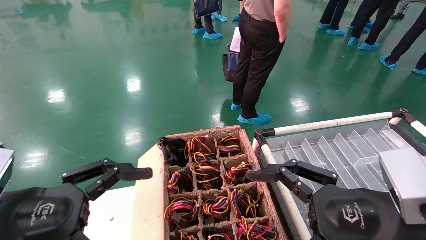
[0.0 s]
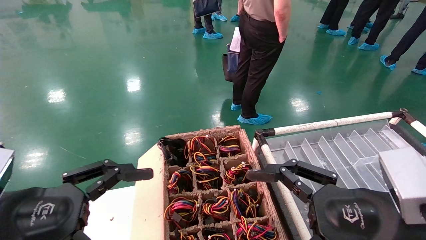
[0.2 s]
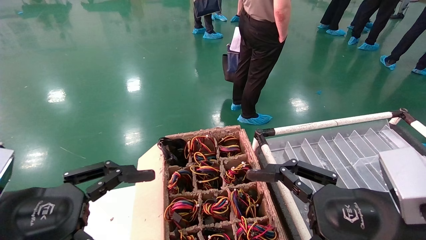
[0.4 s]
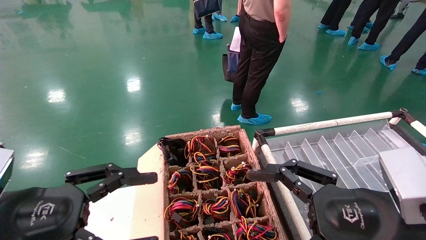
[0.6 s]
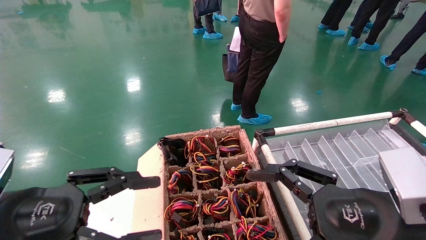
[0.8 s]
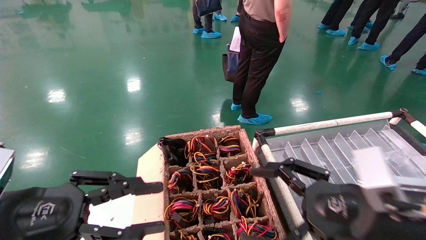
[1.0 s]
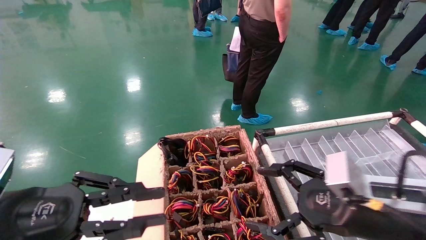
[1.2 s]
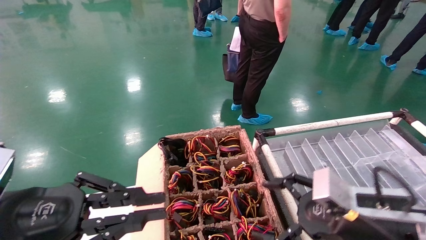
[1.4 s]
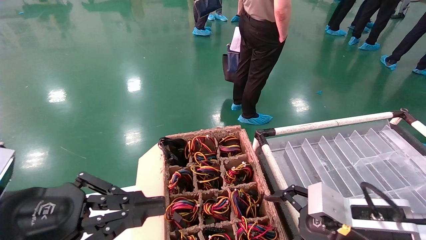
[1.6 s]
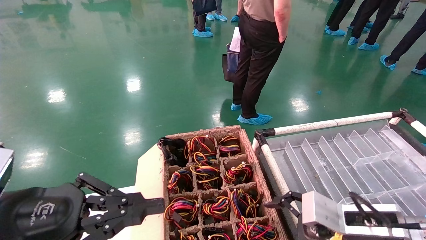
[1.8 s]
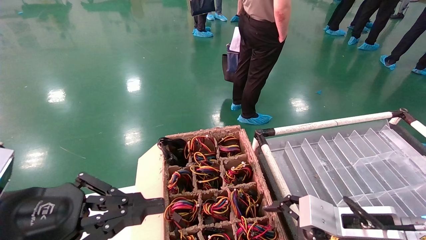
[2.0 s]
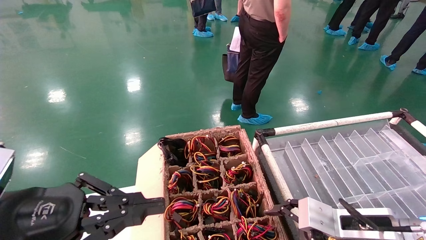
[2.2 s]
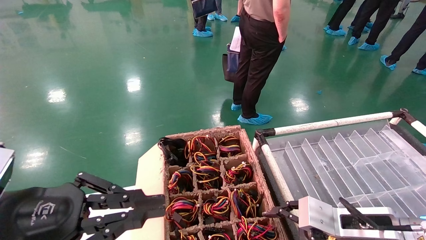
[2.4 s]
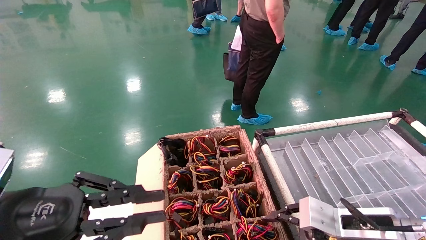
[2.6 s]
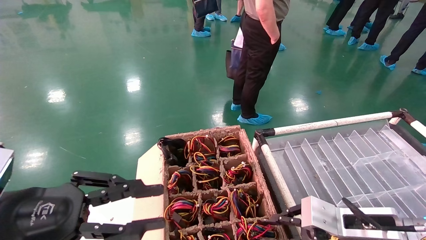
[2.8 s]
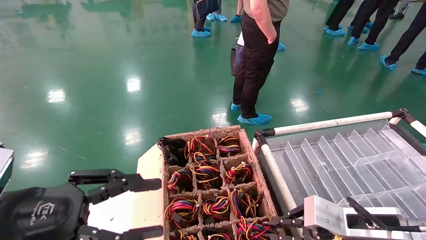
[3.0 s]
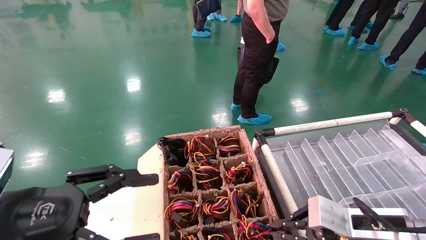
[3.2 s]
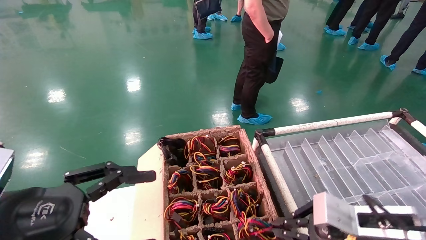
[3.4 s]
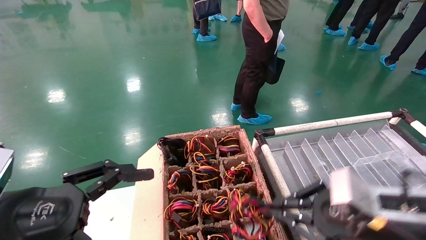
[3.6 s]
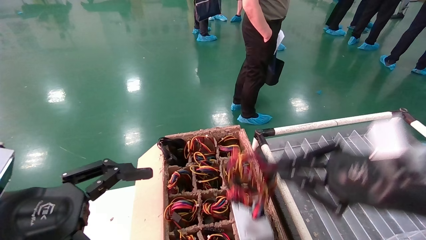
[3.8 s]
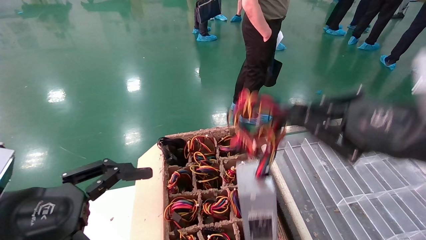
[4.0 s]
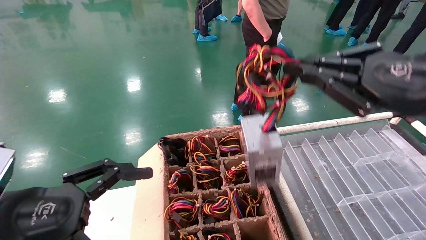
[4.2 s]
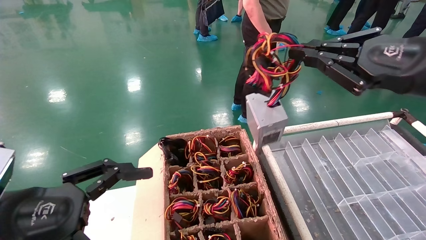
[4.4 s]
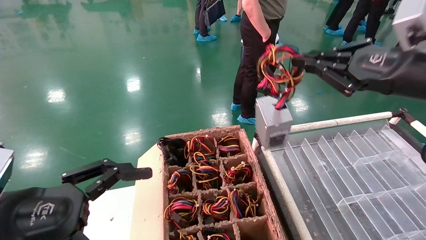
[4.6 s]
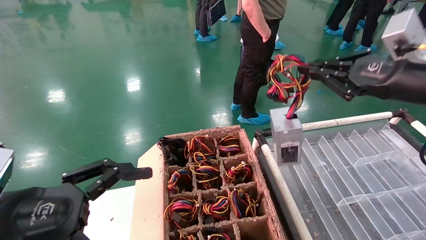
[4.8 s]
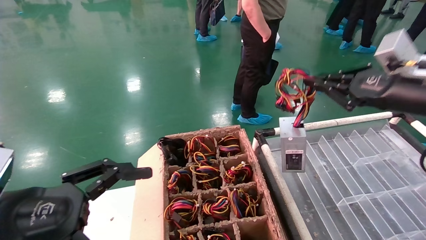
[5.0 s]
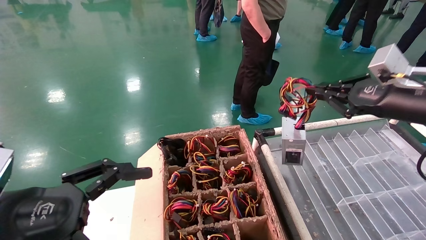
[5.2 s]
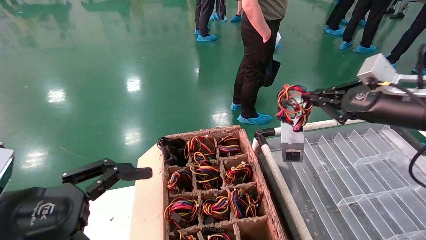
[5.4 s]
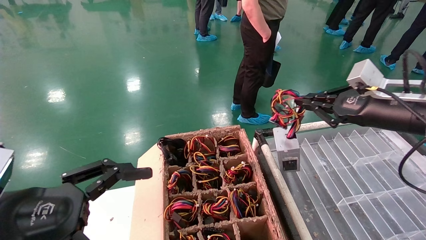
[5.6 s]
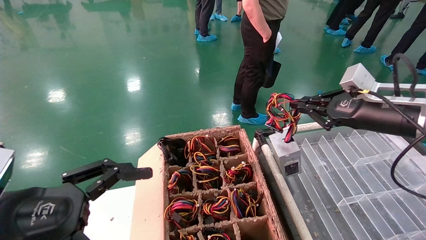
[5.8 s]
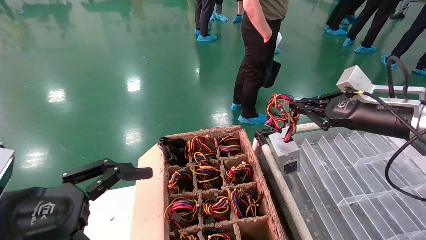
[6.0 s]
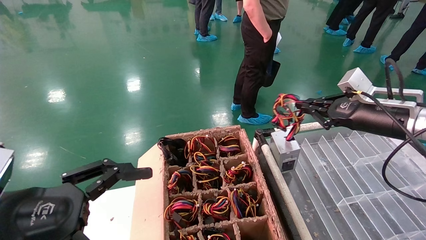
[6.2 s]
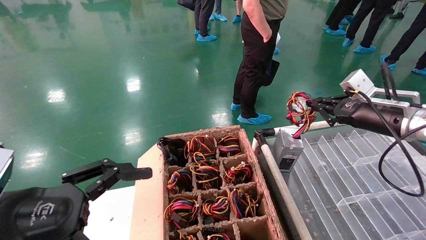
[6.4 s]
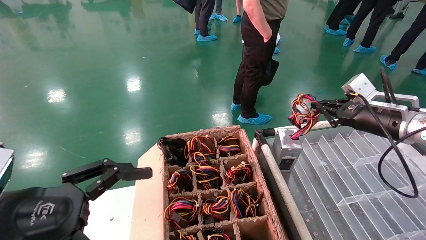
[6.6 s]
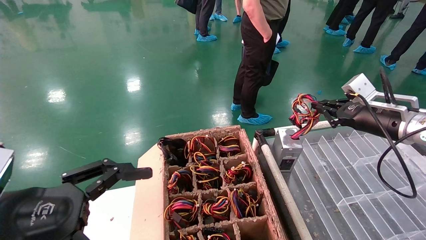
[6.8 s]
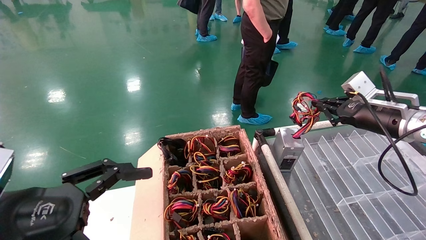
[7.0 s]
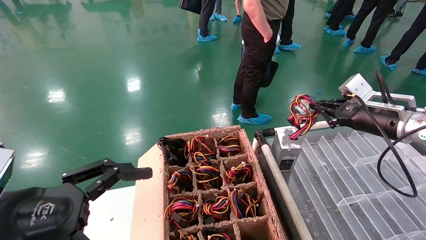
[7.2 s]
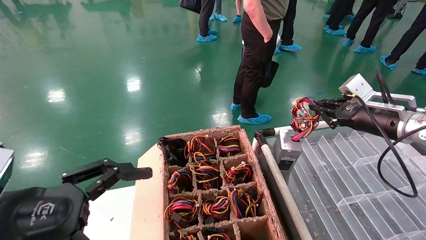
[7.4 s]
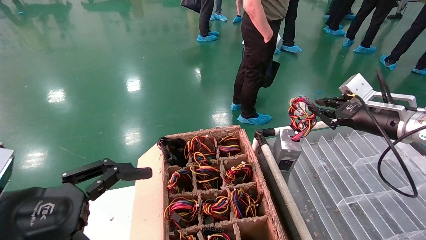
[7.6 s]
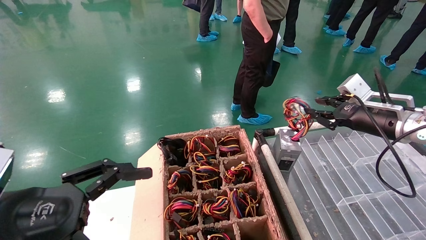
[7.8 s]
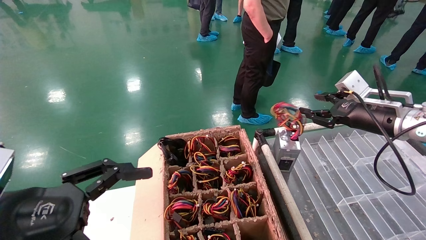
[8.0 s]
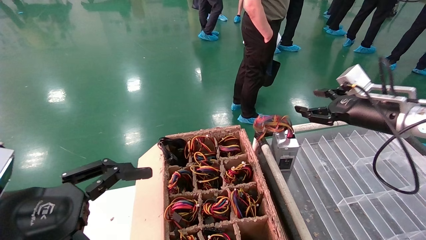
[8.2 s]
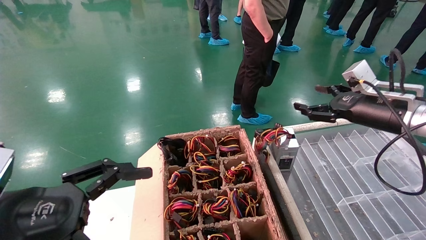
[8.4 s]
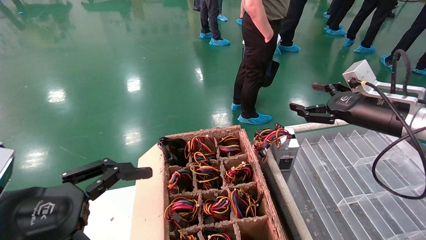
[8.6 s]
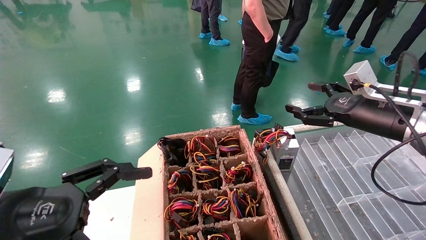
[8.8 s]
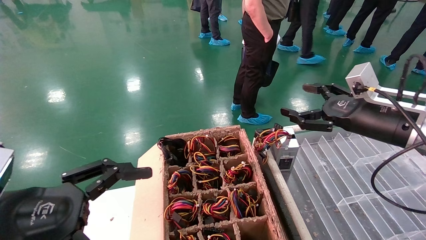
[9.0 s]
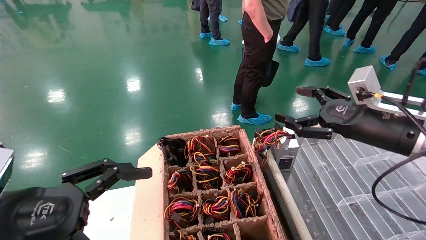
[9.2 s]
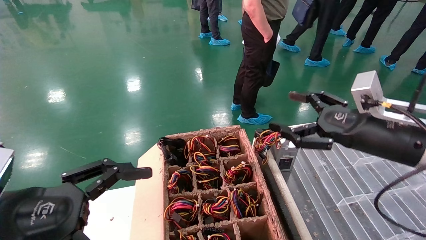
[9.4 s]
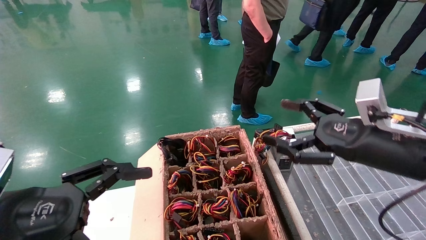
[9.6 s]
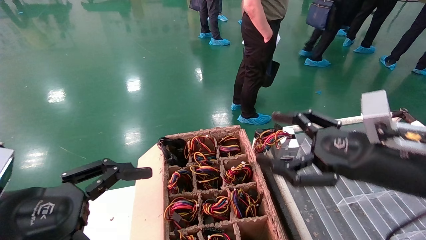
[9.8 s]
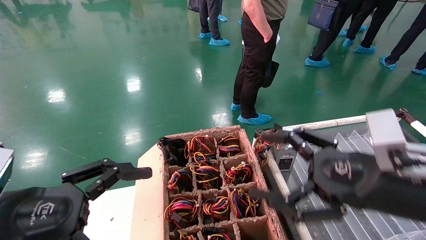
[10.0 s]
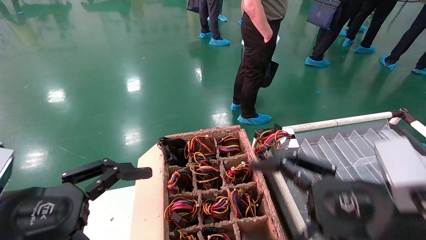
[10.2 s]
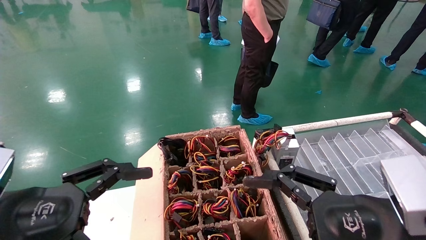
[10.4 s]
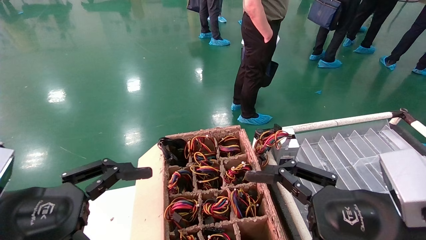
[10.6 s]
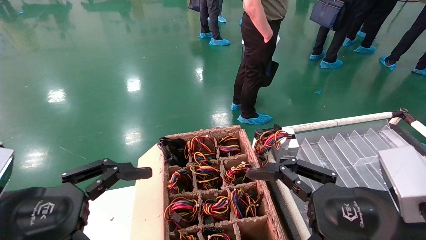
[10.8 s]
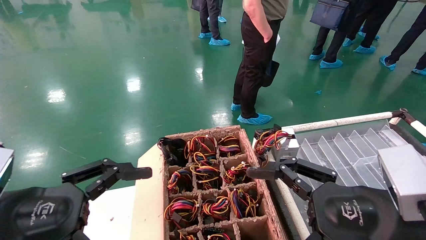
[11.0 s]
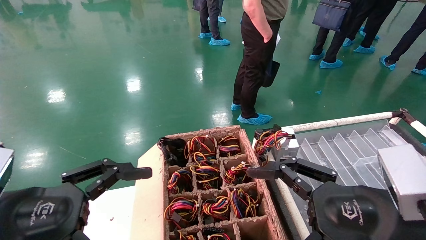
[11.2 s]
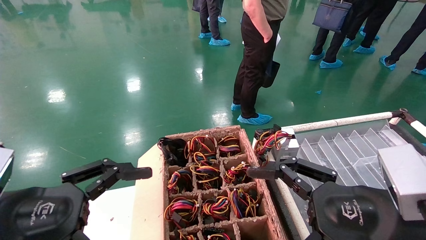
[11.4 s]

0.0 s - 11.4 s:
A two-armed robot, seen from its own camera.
Step, 0.8 s - 3.4 s: Grab and lift the power supply from the large box.
Step, 3.6 s - 7.8 s: Place the power supply on the operating table.
0.0 s - 1.4 s: The right gripper heads forward, covering approximately 5 cm, while the left gripper closes.
1.4 s - 2.8 s: The right gripper closes.
2.8 s - 4.2 s: The right gripper is displaced upward by approximately 20 cm, and closes up. The left gripper opens its fingers.
4.2 s - 5.6 s: The right gripper shifts approximately 15 cm forward and to the right.
5.6 s - 7.2 s: The right gripper heads forward, covering roughly 5 cm.
7.2 s - 8.6 s: The right gripper opens up.
8.6 s - 10.0 s: The right gripper goes some 20 cm backward and to the left.
10.0 s - 11.4 s: There are only small adjustments of the grippers.

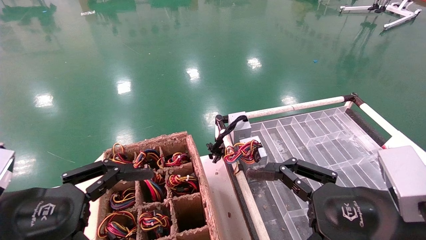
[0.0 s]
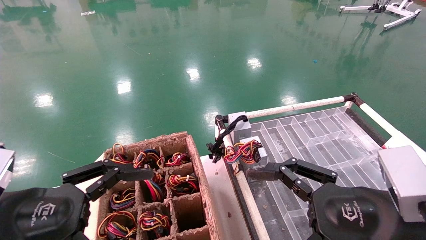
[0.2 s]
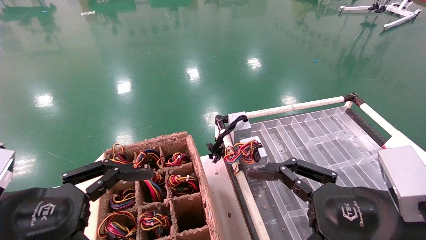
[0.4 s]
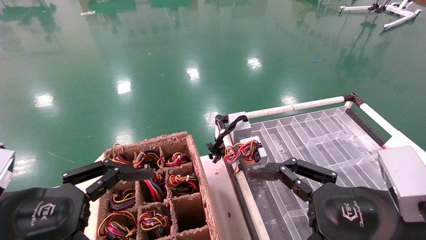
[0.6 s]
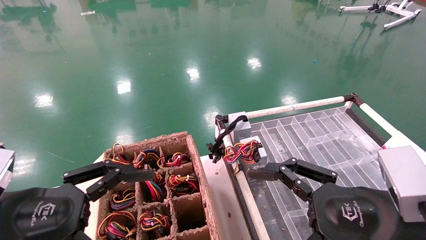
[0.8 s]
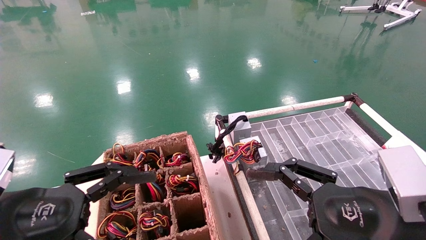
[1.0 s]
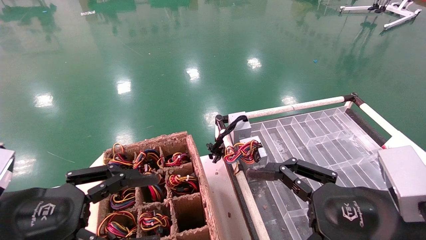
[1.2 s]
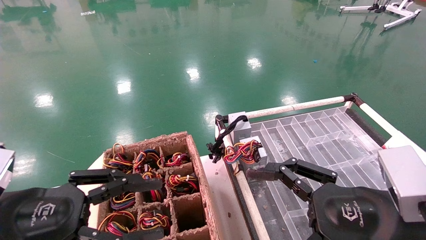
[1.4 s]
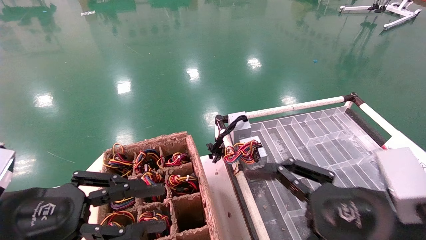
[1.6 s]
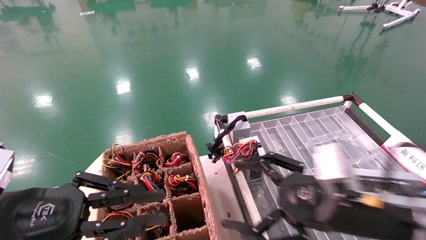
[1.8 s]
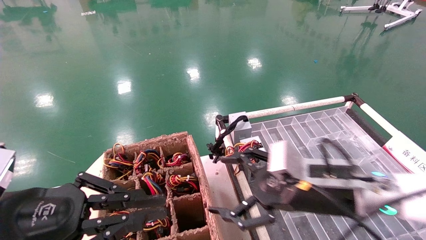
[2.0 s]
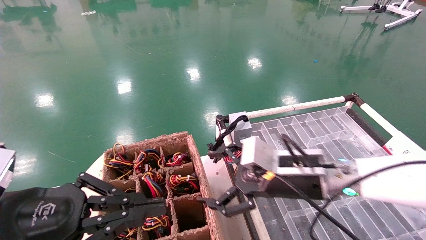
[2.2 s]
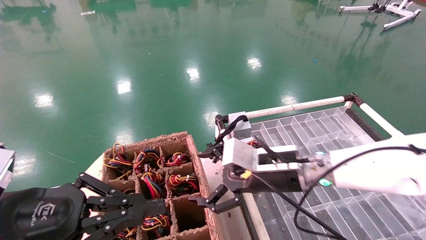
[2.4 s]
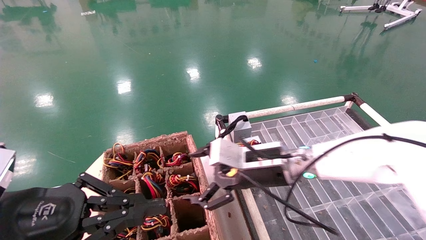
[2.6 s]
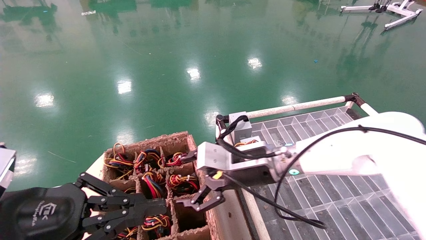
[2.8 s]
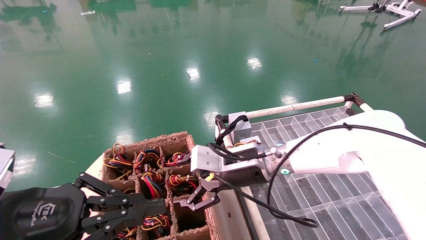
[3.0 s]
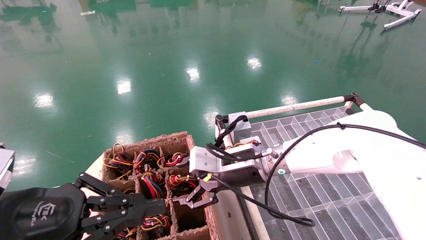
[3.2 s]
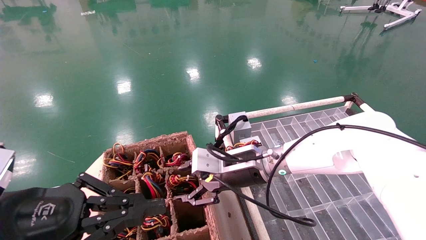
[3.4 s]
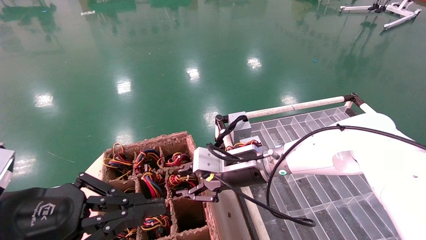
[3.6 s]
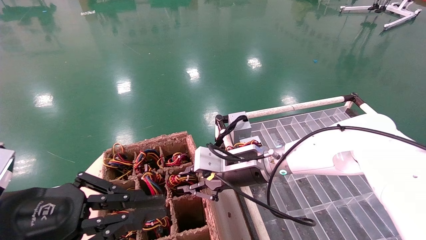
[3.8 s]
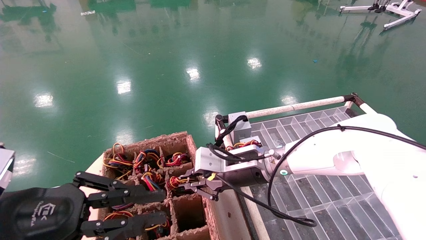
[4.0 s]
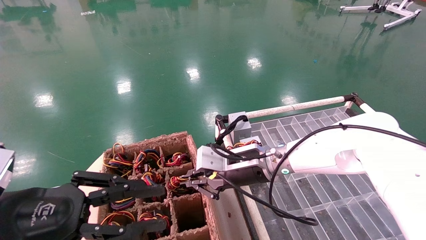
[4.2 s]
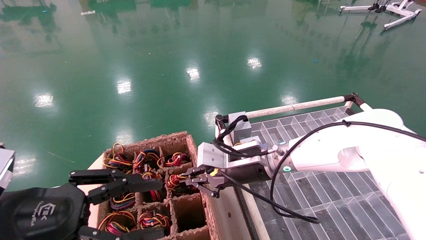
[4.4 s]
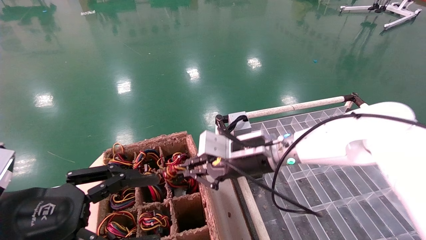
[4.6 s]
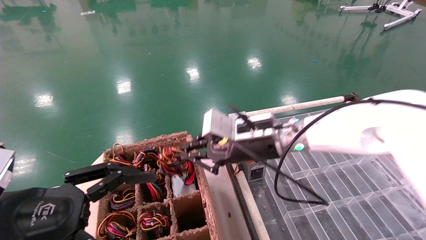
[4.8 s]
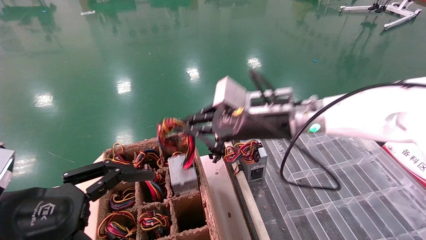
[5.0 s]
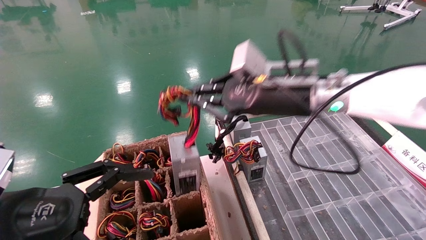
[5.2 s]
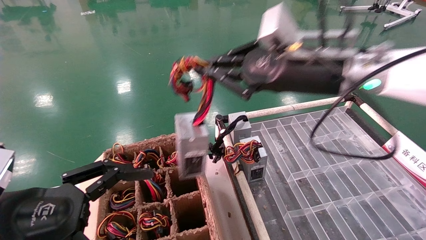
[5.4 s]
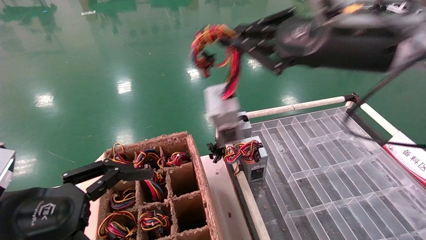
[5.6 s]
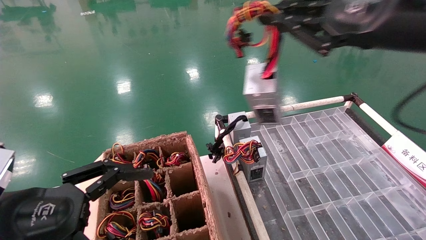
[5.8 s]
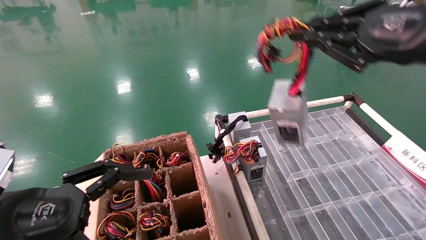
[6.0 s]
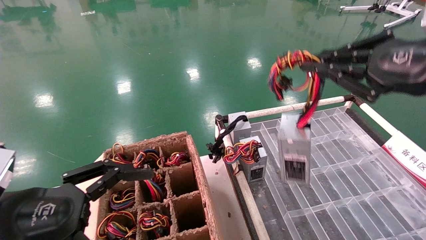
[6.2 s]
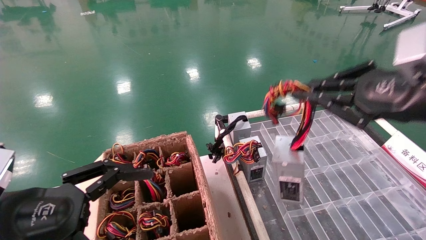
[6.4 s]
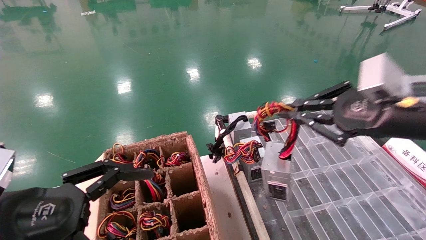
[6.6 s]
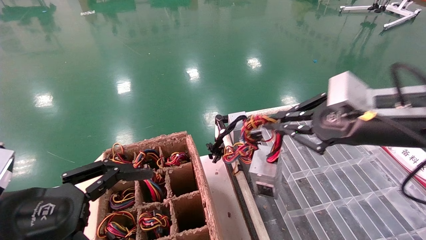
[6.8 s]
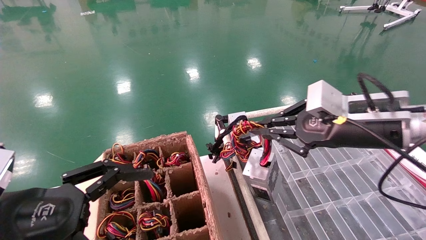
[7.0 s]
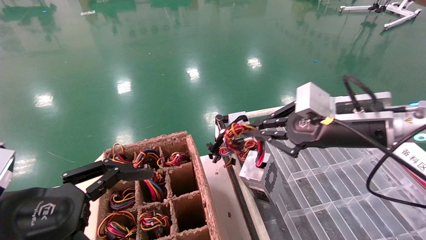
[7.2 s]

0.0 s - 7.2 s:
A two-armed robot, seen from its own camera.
Step, 2.2 s - 4.0 s: Grab and lift the power supply from the large box.
0.0 s - 1.4 s: The left gripper closes up.
1.4 s - 2.8 s: The left gripper closes up; the right gripper is displaced forward and to the left by some 25 cm.
2.8 s - 4.4 s: The left gripper opens up. The right gripper closes its fingers.
4.4 s - 5.8 s: The right gripper travels upward, to the right and backward by some 30 cm, while the left gripper opens.
5.8 s - 7.2 s: The right gripper moves downward and forward, roughly 15 cm.
